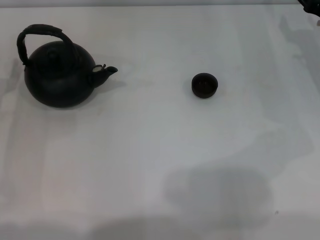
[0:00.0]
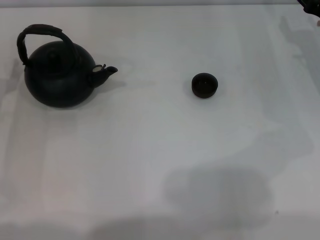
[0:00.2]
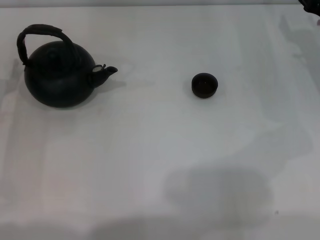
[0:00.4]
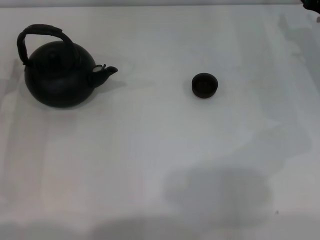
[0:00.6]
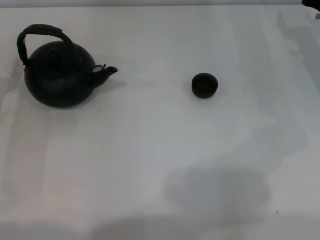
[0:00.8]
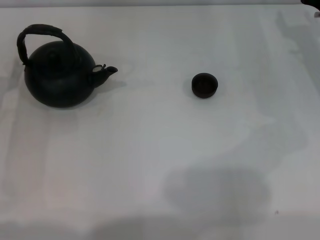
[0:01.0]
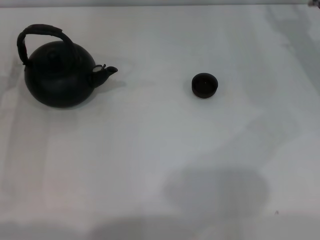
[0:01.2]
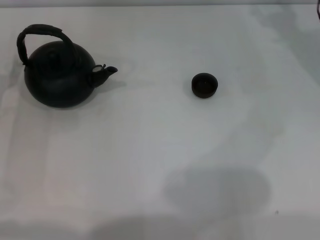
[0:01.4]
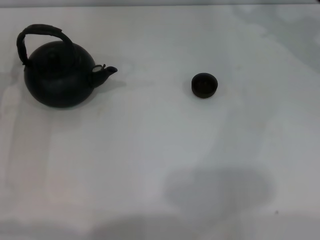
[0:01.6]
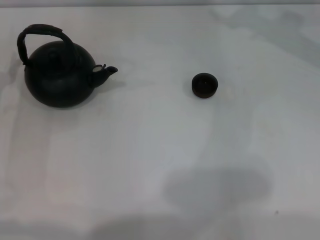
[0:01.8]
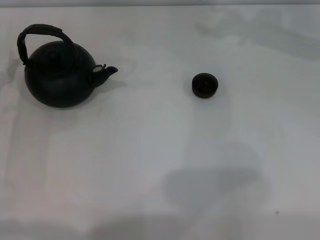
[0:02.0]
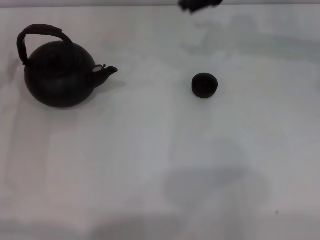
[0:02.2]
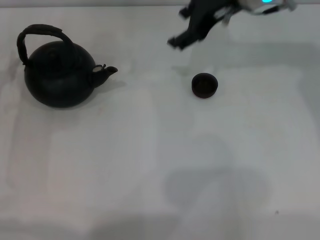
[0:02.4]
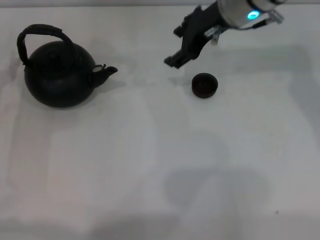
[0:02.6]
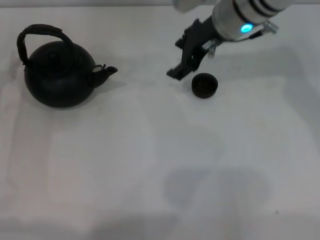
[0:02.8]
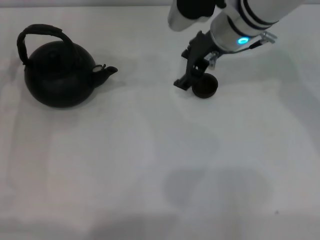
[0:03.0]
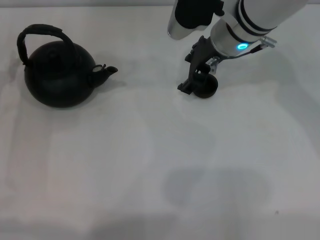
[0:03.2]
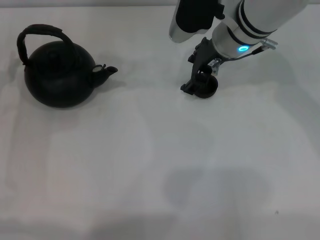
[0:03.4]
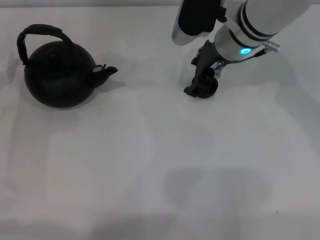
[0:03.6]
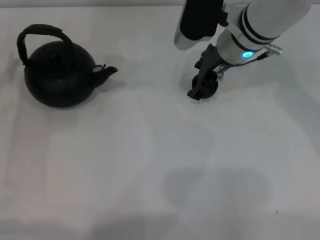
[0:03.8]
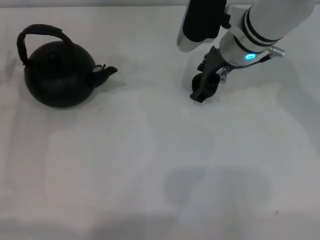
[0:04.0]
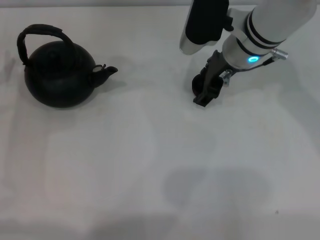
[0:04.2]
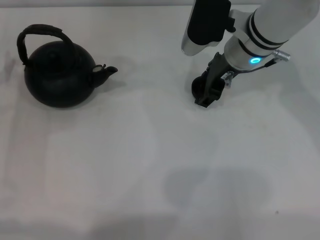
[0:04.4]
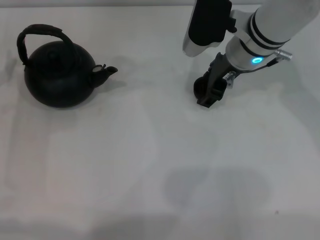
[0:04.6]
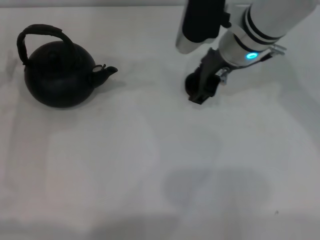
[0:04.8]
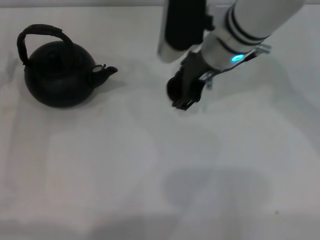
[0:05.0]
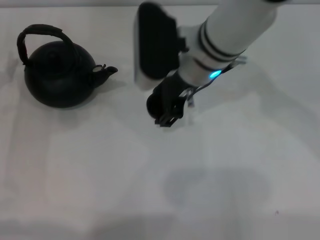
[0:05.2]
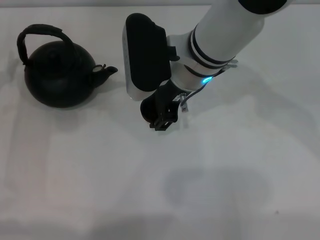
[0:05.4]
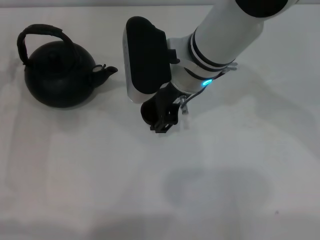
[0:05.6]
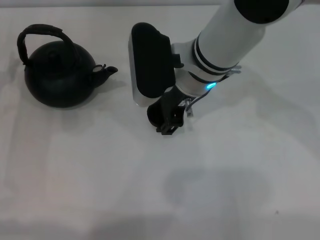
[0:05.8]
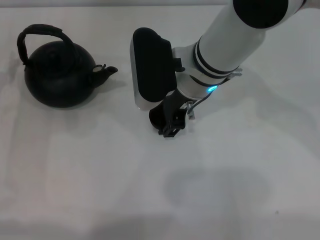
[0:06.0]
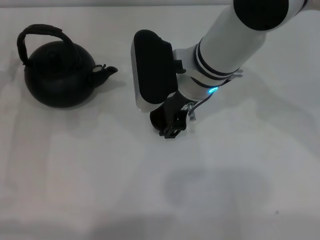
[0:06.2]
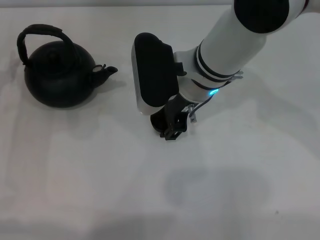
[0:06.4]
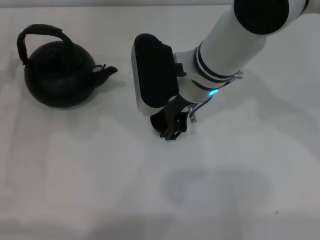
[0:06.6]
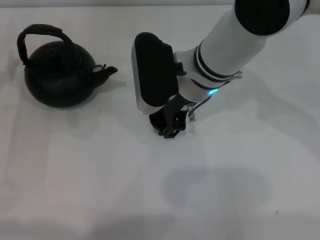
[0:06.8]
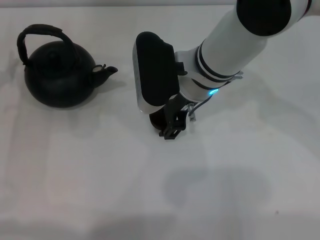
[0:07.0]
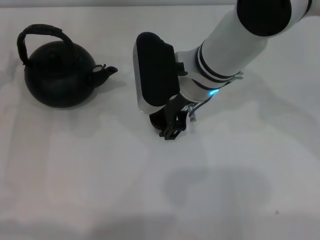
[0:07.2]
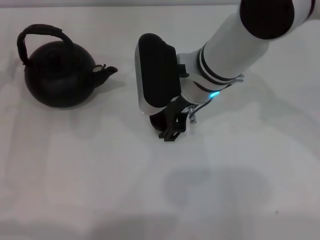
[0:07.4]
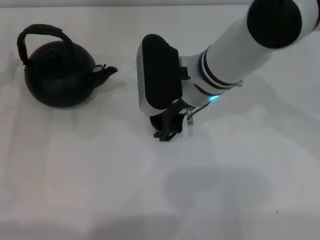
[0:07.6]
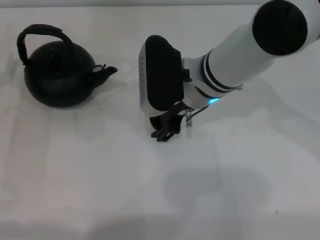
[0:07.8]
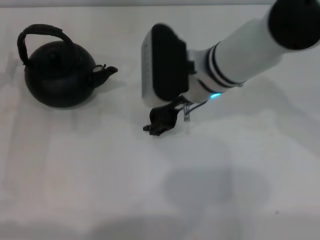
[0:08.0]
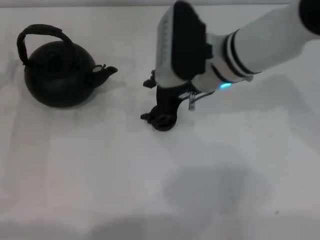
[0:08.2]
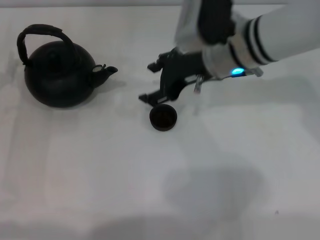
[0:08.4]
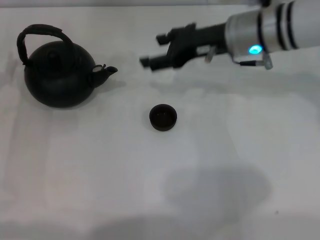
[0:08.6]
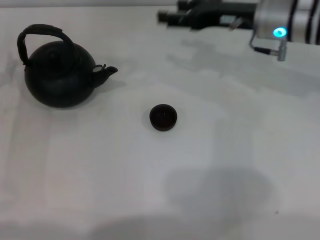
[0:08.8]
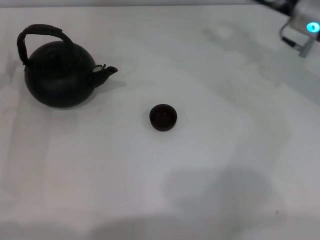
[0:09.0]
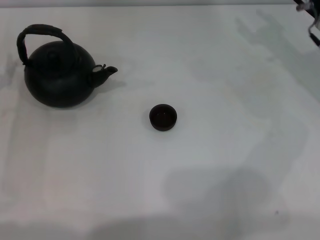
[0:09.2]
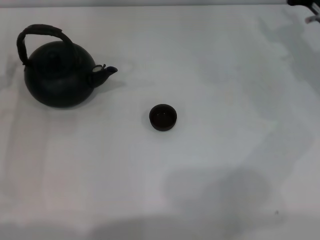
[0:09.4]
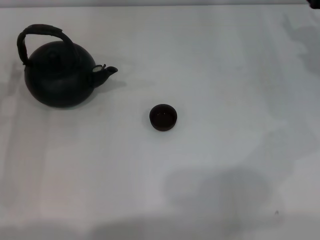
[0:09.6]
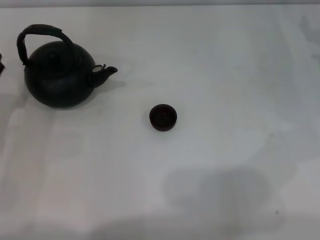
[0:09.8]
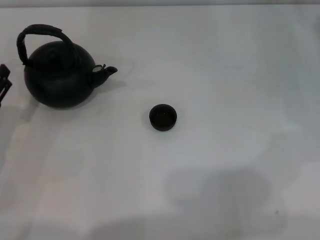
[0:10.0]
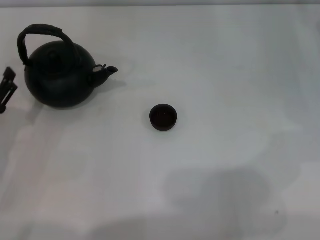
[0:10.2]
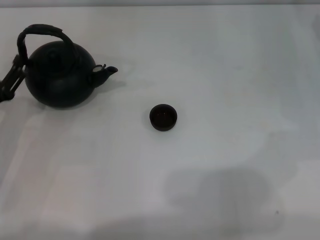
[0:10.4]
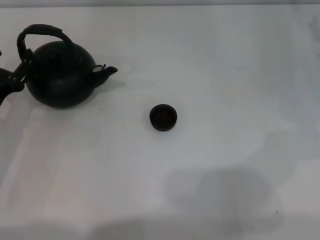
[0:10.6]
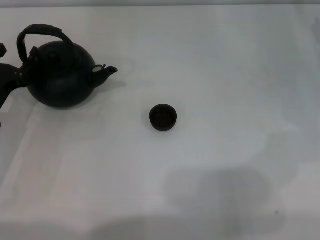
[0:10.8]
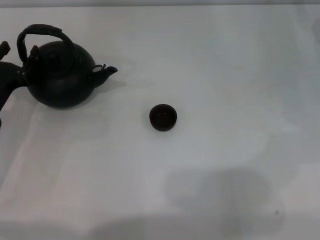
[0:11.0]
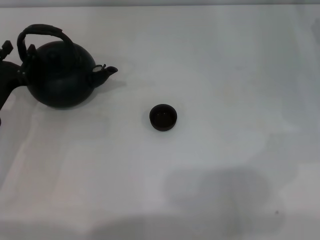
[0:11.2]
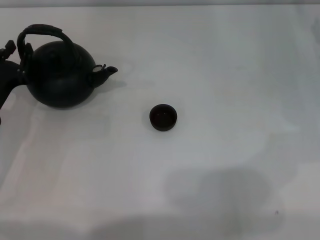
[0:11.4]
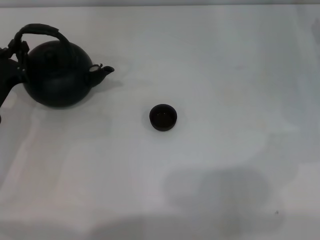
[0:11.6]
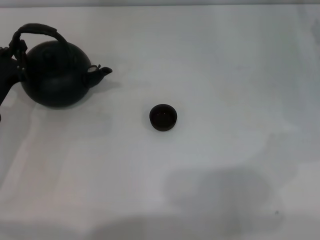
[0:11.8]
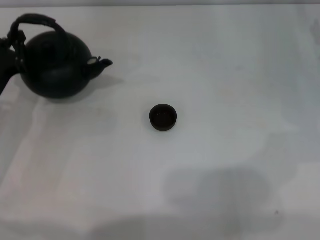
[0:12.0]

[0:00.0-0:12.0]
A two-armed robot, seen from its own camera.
Task of the whole recording: Grasp the handle of the teapot with one hand and pour tea into the teacup.
Step, 0:00.0 to 0:04.8: Pick up the teacup with the right gripper.
Step, 0:05.0 to 0:08.2: Place the teacup in the center of view with the right gripper.
0:01.6 to 0:03.0: The right gripper is displaced to the left by some 15 cm.
0:03.0 to 0:04.4: The grippers make only small movements.
0:04.4 to 0:06.0: The right gripper heads to the left, covering roughly 10 cm.
0:06.0 to 0:07.6: The grippers stay close to where they were, moving slightly.
0:07.6 to 0:09.0: The right gripper heads to the right, covering some 20 cm.
0:09.0 to 0:10.4: The right gripper heads to the right and downward, covering approximately 10 cm. The left gripper shifts by approximately 5 cm.
0:10.4 to 0:12.0: The left gripper heads forward, covering some 5 cm, and closes up.

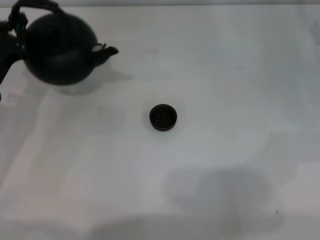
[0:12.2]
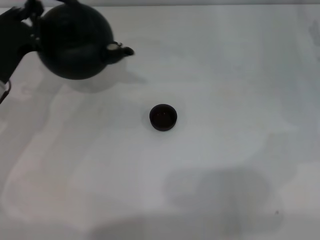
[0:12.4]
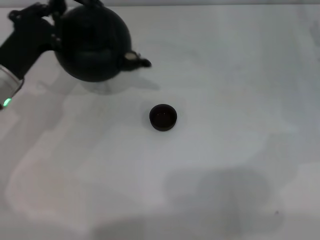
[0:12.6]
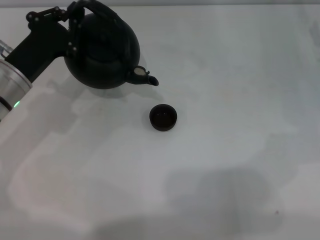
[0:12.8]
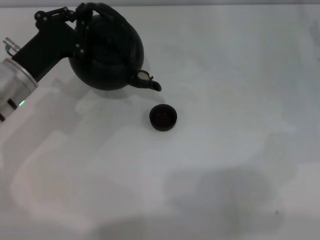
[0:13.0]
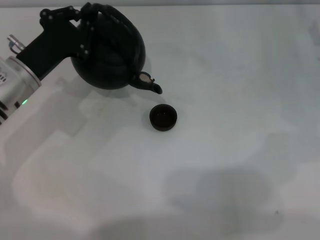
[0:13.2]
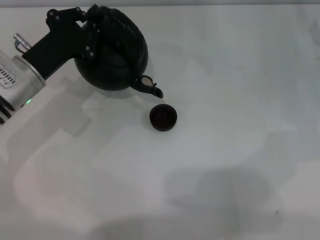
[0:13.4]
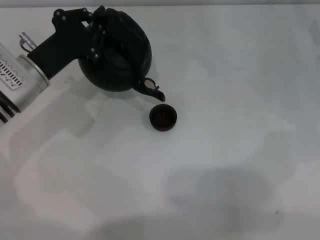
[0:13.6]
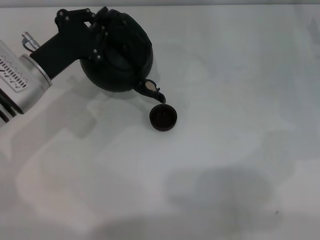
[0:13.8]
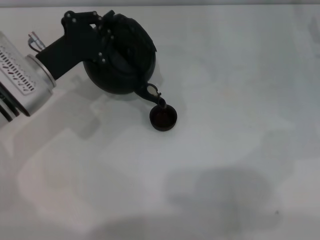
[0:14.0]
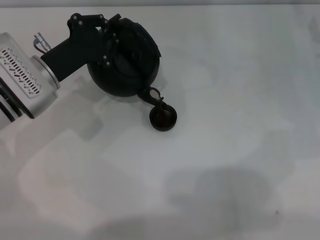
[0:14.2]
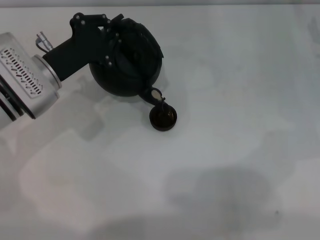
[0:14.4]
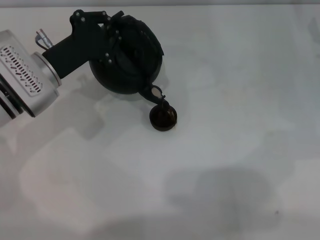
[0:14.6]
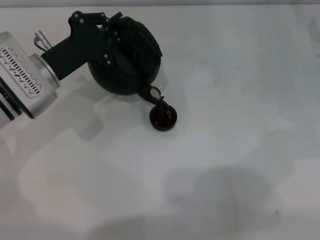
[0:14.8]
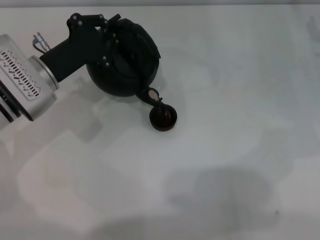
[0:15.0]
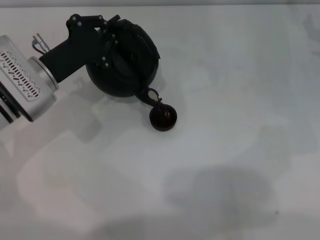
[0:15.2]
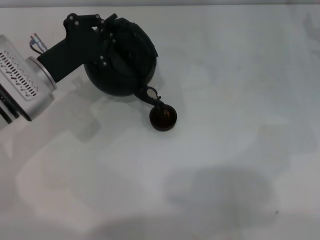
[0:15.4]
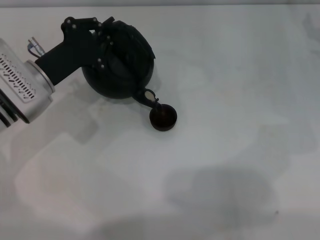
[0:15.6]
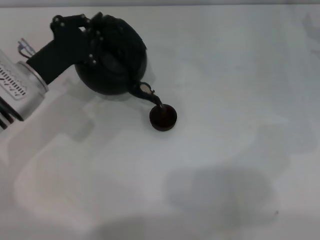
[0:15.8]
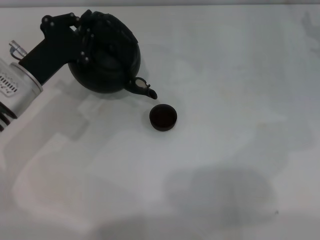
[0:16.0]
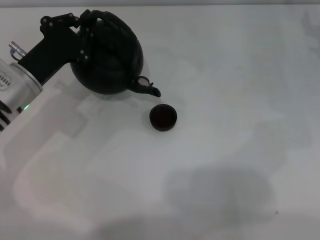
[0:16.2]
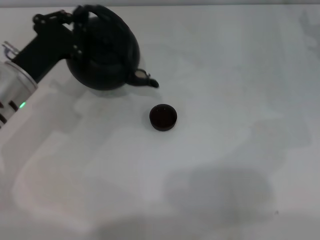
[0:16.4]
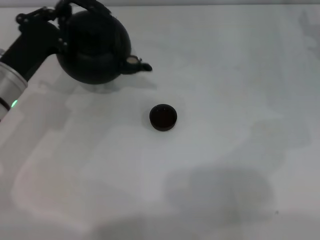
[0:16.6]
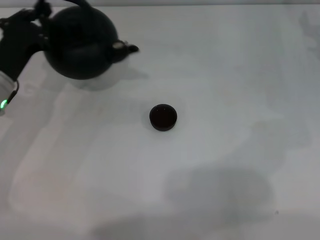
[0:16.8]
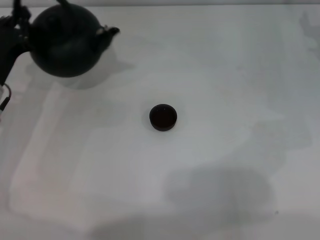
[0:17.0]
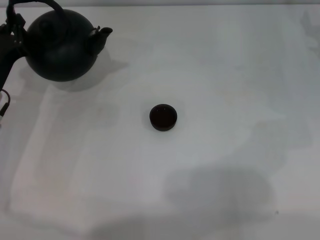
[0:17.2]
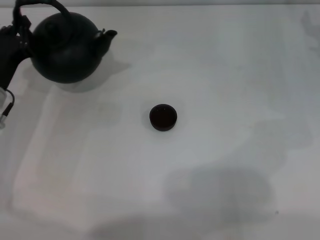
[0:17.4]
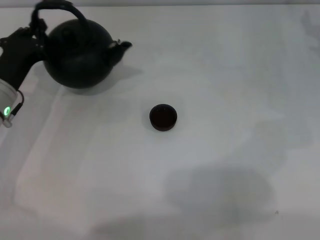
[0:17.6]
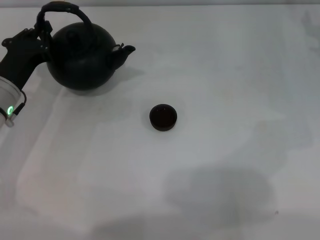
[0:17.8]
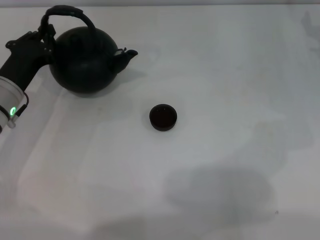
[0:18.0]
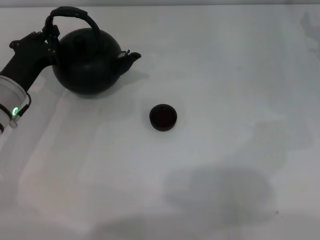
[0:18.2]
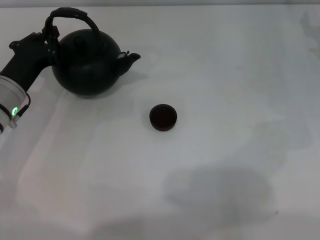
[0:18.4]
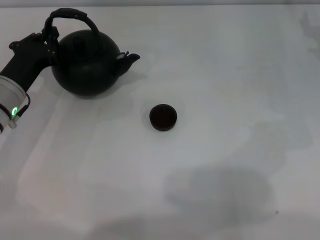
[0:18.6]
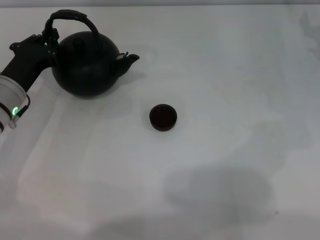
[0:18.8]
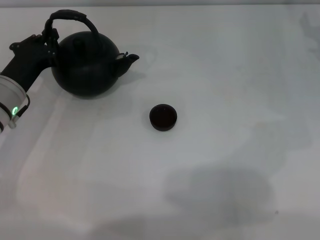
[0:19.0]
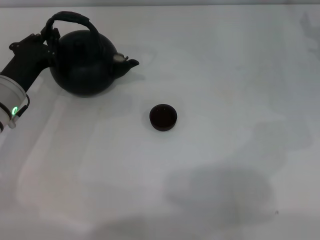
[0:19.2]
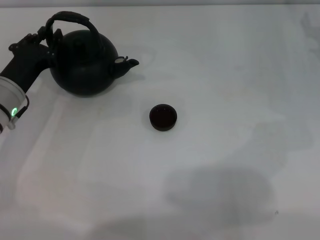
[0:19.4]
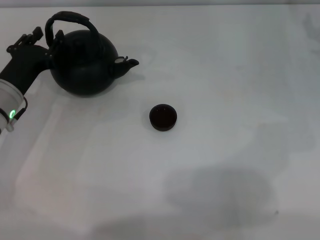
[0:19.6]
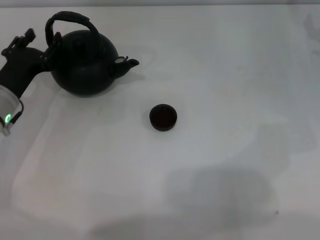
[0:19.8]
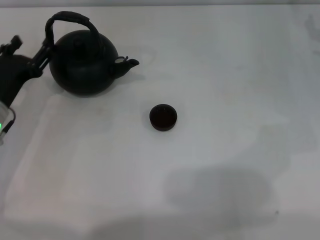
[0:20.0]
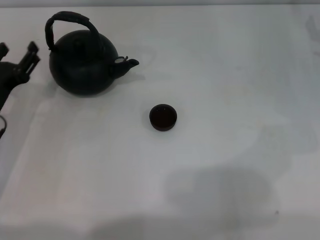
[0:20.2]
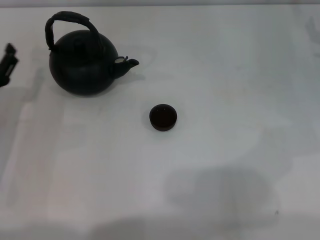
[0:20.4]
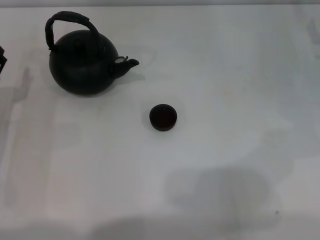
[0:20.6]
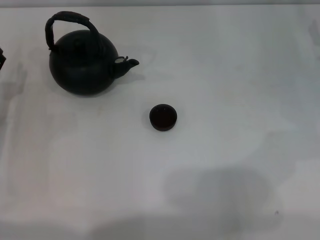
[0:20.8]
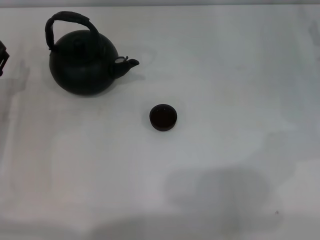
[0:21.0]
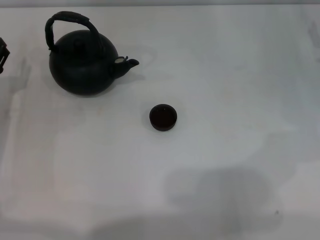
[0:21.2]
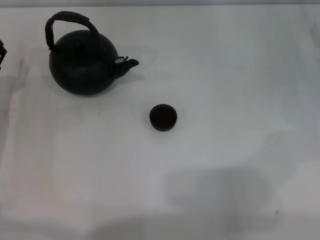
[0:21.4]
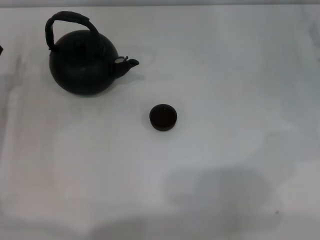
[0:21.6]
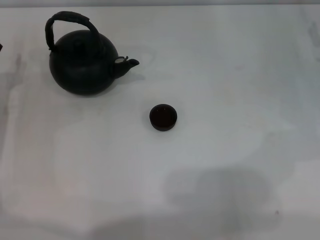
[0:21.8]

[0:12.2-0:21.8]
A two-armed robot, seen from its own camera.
Task of the whole recording: Grasp the handle of the teapot with one hand and pour tea into the teacup.
Step, 0:13.0 to 0:16.4: Pour tea into the teacup with the left gripper.
Step, 0:16.6 to 0:20.0: Put down the teapot with the left gripper.
0:12.2 to 0:13.8: The left gripper travels to the right by roughly 5 cm.
0:13.8 to 0:15.4: There are only small adjustments of the grippers.
0:15.4 to 0:17.0: The left gripper goes some 5 cm to the left.
0:17.0 to 0:18.6: The grippers make only small movements.
0:18.6 to 0:20.2: The left gripper ends up roughly 5 cm from where it was, and opens.
0:20.2 to 0:21.8: The grippers make only small movements.
